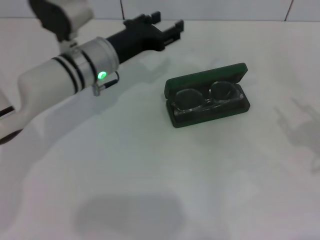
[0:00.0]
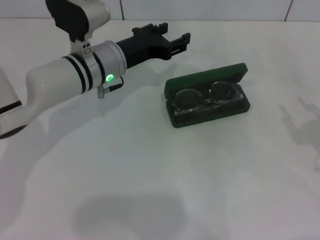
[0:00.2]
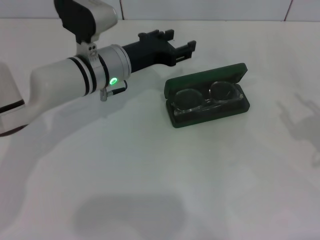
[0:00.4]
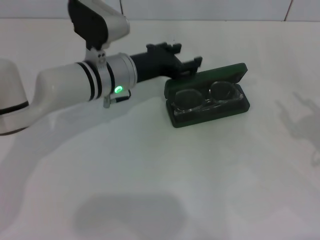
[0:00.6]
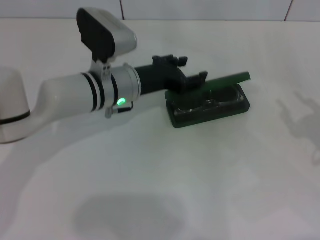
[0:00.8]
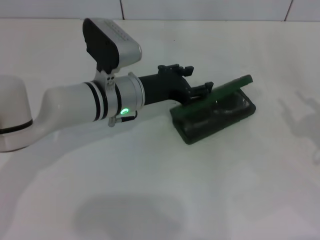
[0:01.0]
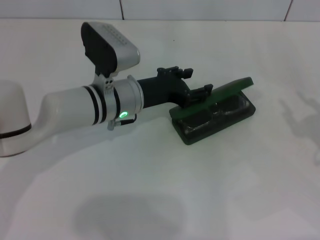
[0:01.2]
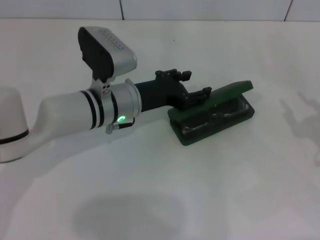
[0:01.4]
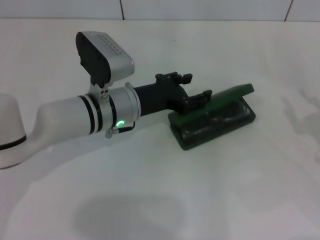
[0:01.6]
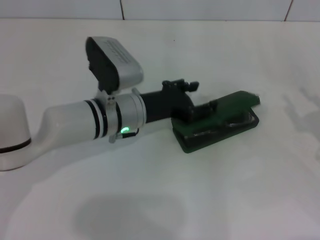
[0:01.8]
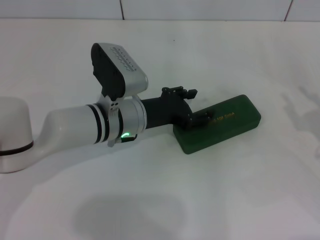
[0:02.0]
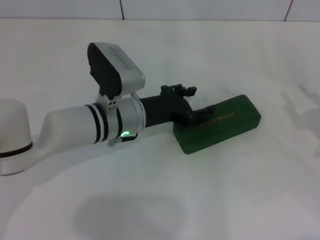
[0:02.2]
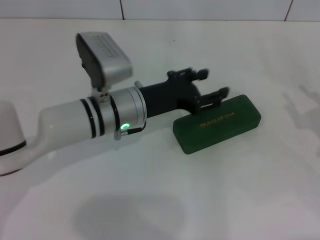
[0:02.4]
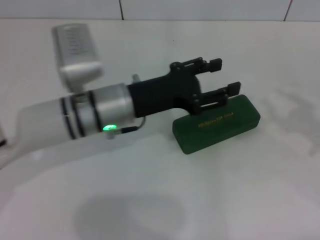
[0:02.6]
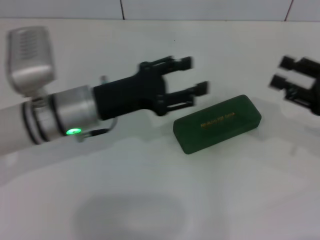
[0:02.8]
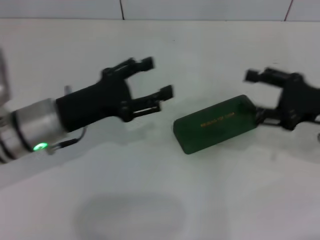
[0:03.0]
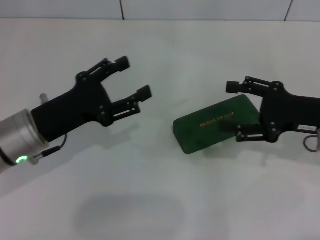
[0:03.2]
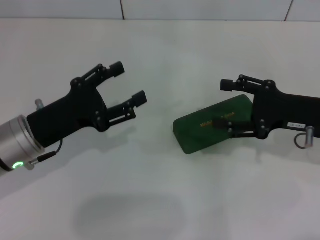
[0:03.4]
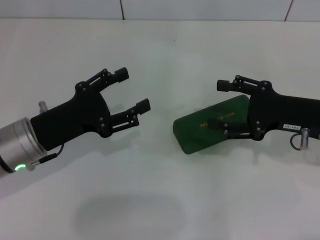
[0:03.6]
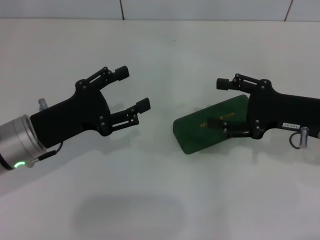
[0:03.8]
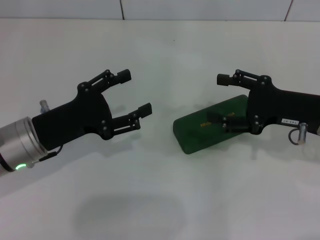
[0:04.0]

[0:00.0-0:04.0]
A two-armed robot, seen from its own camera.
Step, 0:00.0 to 0:01.8: Close the glasses case with your left hand.
0:00.0 to 0:01.4: The left gripper ends up roughly 5 cm from where it was.
0:02.6 to 0:04.0: The right gripper shifts about 10 cm to the left and forward, and opens up. The left gripper goes some 10 cm to the left.
